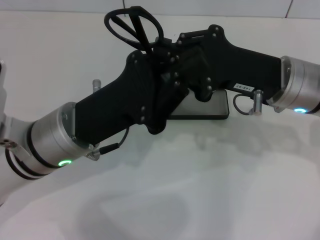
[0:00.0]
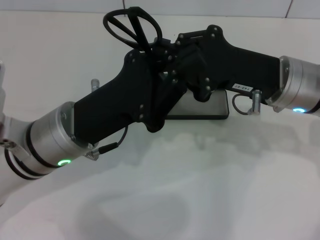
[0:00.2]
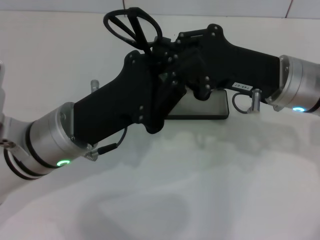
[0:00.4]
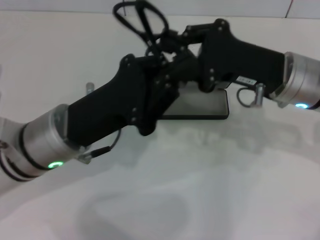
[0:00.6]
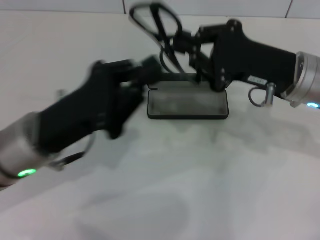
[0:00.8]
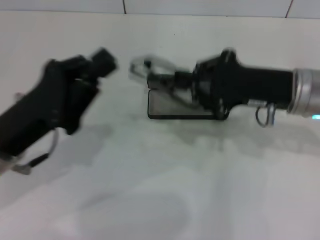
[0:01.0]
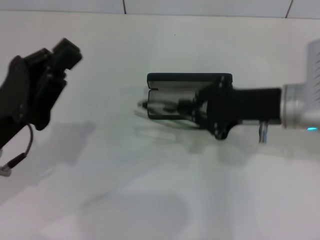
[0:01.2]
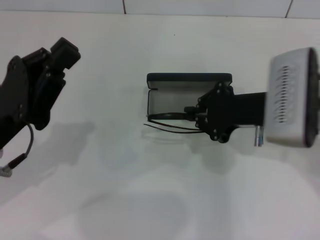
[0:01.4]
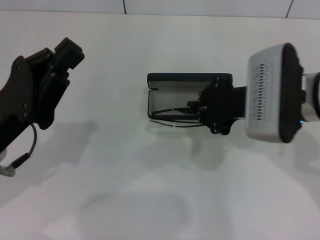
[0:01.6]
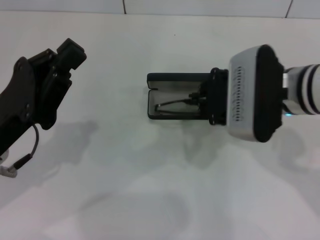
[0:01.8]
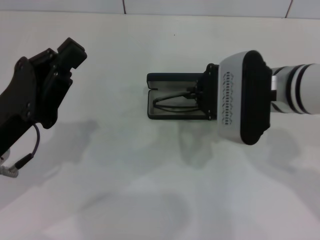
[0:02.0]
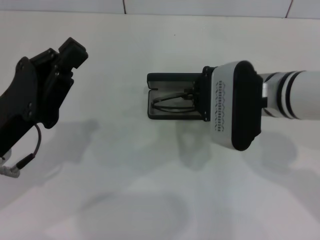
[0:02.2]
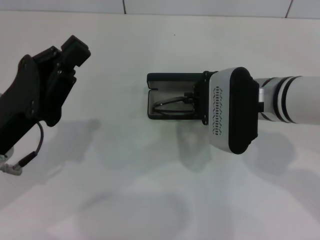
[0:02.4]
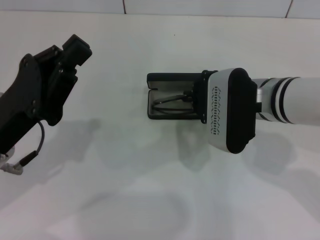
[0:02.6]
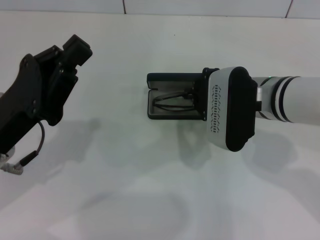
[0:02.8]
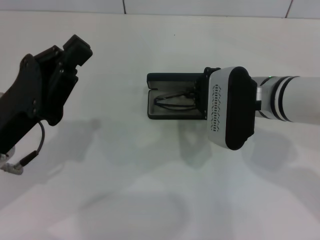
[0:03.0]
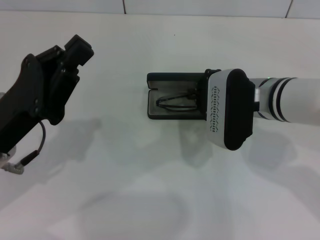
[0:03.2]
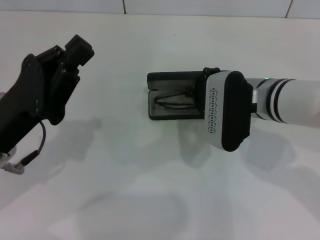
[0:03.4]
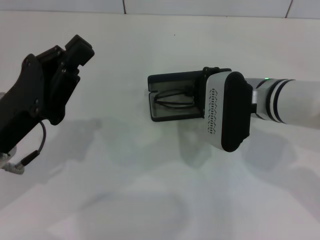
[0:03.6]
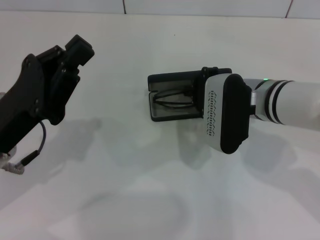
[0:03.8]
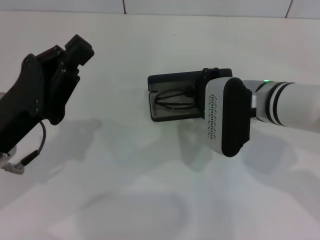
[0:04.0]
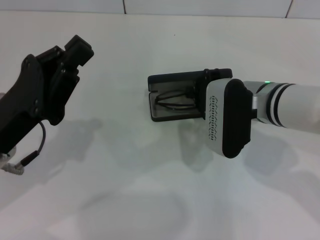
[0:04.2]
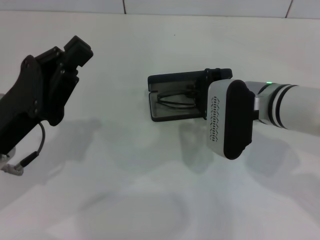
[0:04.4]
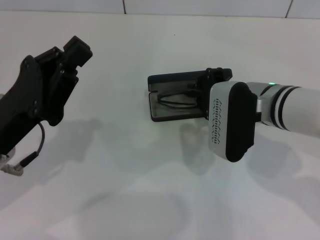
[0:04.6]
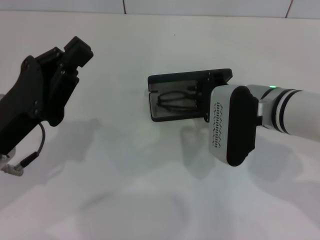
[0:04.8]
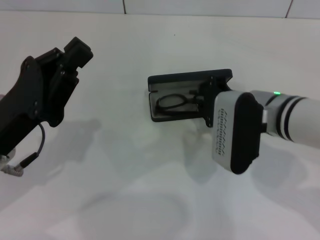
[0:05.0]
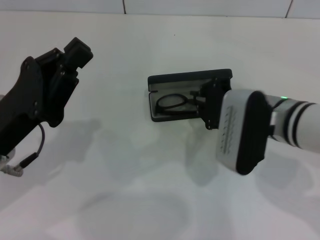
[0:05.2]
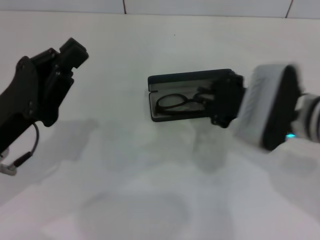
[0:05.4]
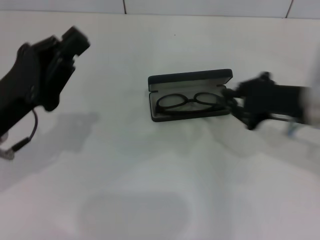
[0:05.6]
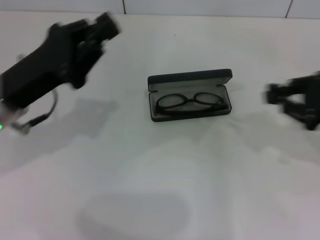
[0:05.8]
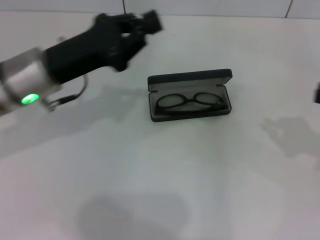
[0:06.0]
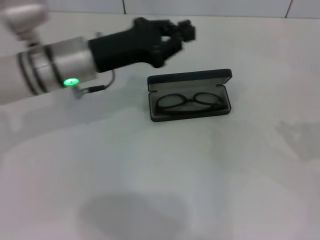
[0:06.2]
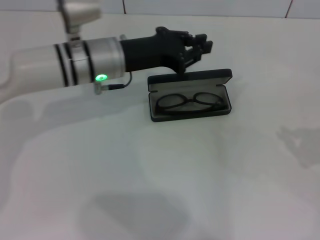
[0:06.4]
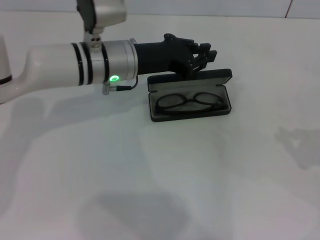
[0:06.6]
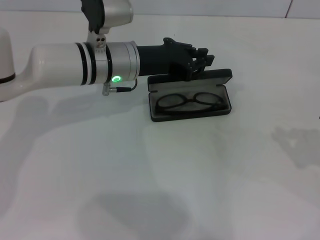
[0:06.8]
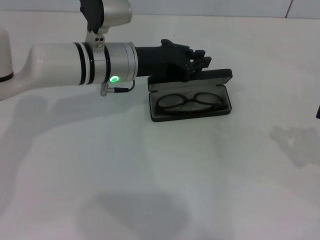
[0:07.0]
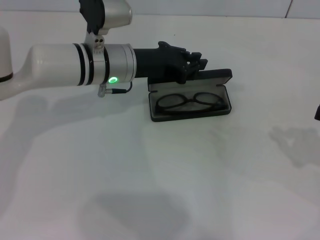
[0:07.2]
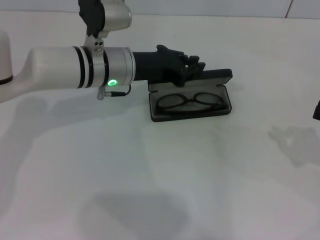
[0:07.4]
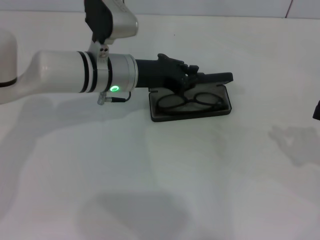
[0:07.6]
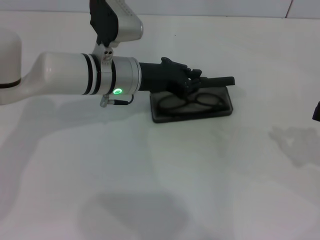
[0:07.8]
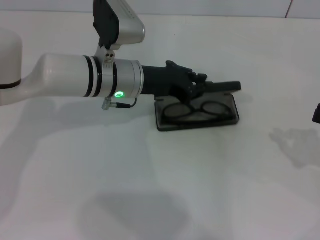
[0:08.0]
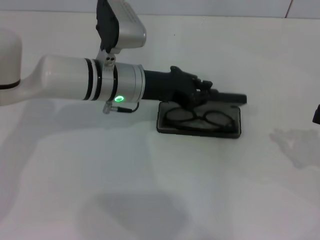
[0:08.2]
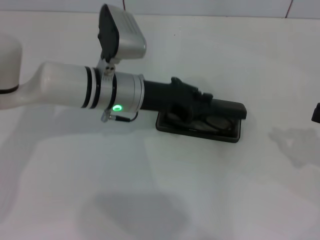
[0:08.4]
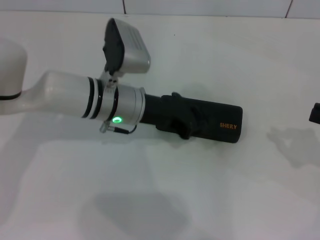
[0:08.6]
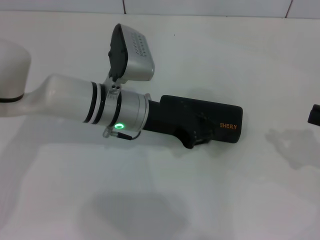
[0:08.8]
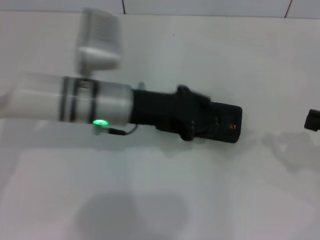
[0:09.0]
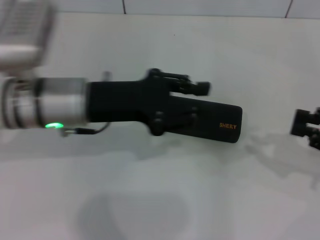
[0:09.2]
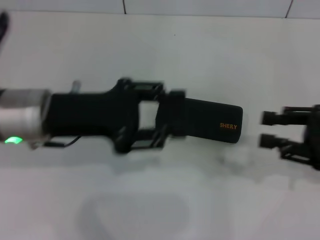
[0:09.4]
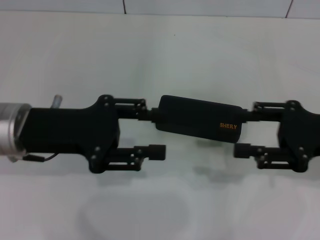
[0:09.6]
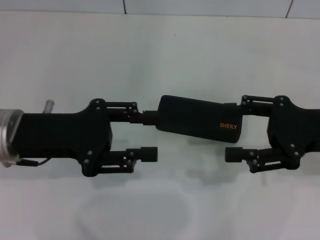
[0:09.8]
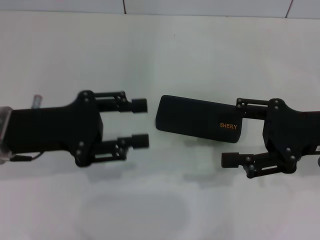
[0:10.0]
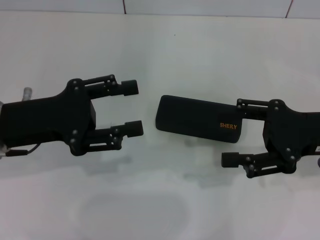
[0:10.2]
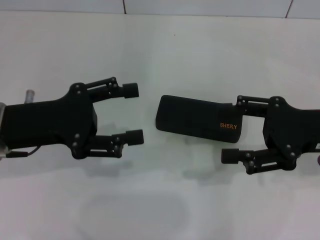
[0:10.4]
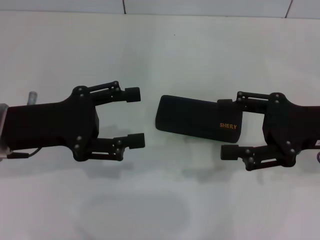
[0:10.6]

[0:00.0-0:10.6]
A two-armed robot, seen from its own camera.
Step, 0:00.6 to 0:05.0: Put the glasses into the case with your right hand.
Step, 0:05.2 to 0:08.4: Close the glasses case with your left hand.
0:00.0 to 0:01.6: The left gripper is displaced to the left by about 10 cm.
0:01.6 to 0:03.0: The right gripper moves some 5 cm.
0:03.0 to 0:04.6: The grippers move only a little.
0:04.6 to 0:06.0: The left gripper moves forward, some 10 cm. The right gripper heads to the right, covering roughly 25 cm.
0:06.0 to 0:07.6: The left gripper is displaced to the right and forward by roughly 10 cm; the right gripper moves some 5 cm.
0:07.6 to 0:09.0: The left gripper is displaced backward by approximately 5 cm.
0:09.0 to 0:10.6: The right gripper moves to the left, about 10 cm, and opens its fingers, while the left gripper travels to the left and backward by about 15 cm, and opens.

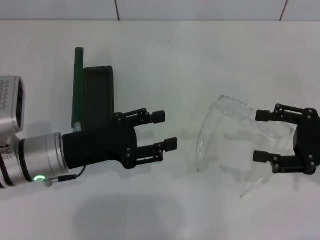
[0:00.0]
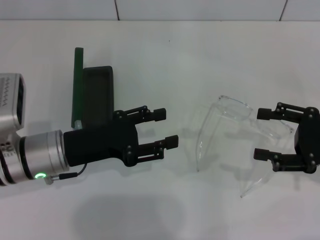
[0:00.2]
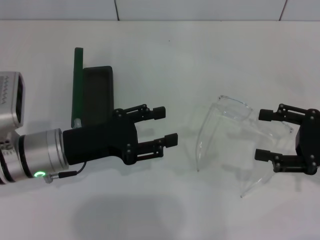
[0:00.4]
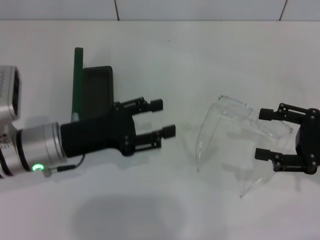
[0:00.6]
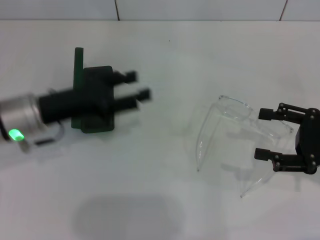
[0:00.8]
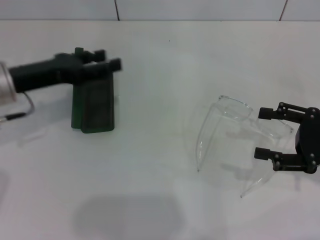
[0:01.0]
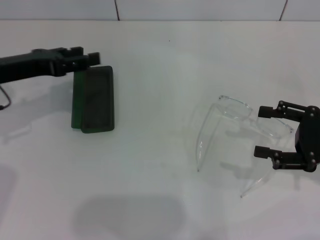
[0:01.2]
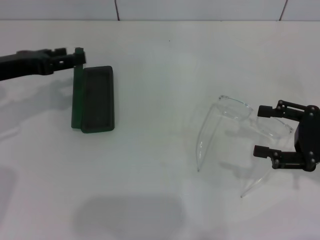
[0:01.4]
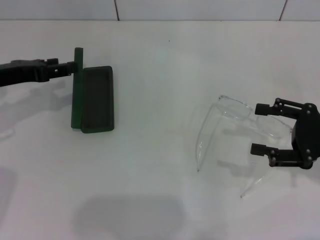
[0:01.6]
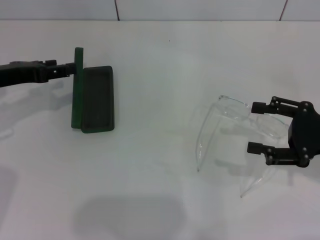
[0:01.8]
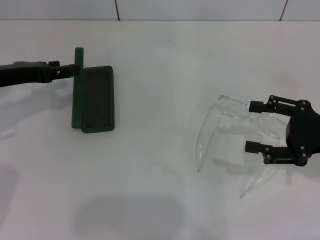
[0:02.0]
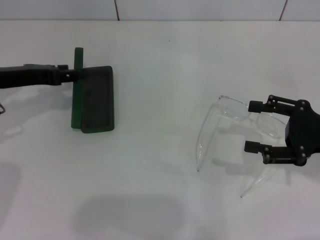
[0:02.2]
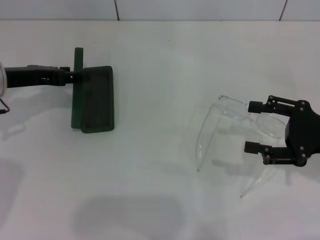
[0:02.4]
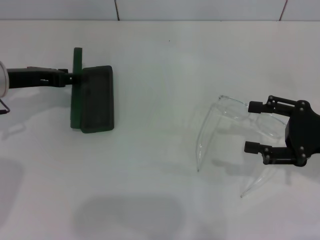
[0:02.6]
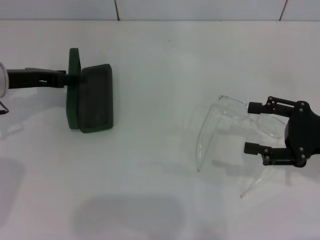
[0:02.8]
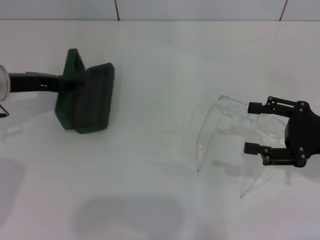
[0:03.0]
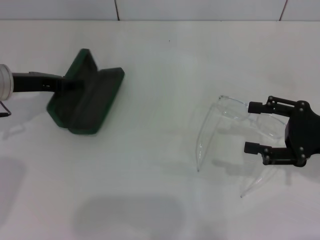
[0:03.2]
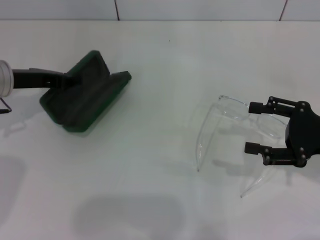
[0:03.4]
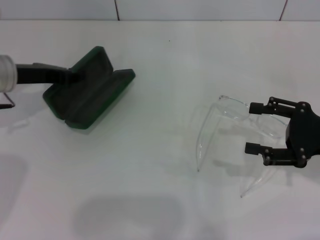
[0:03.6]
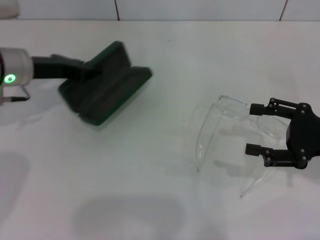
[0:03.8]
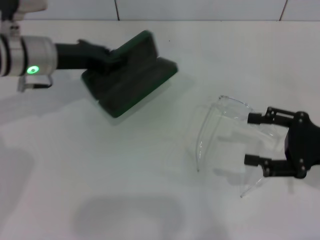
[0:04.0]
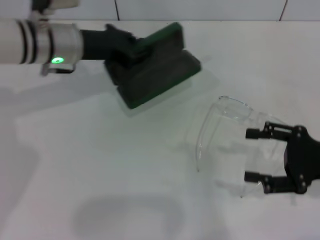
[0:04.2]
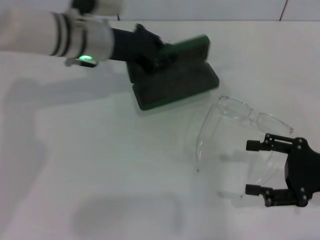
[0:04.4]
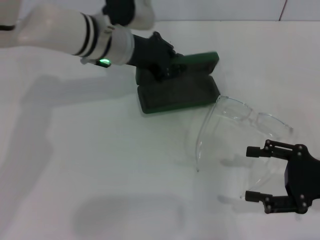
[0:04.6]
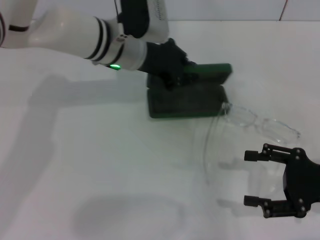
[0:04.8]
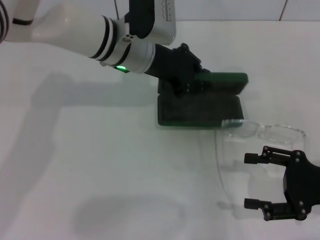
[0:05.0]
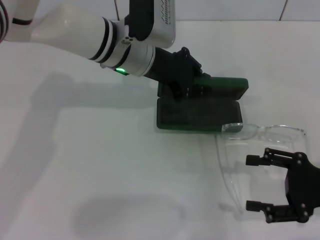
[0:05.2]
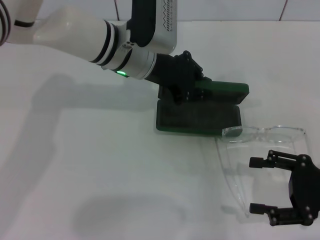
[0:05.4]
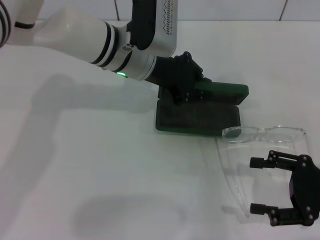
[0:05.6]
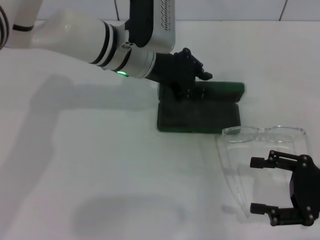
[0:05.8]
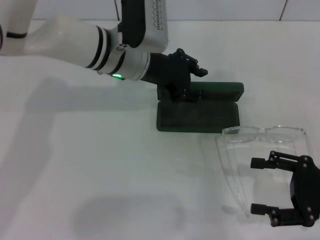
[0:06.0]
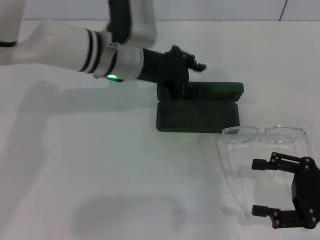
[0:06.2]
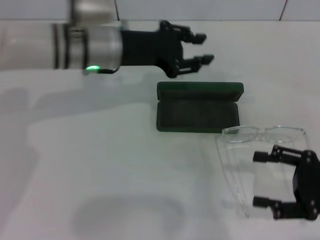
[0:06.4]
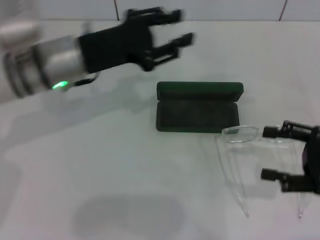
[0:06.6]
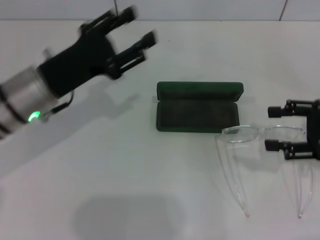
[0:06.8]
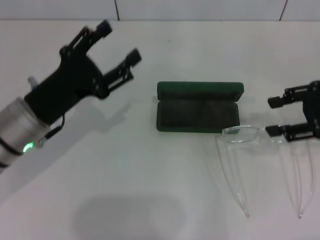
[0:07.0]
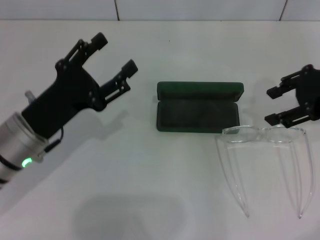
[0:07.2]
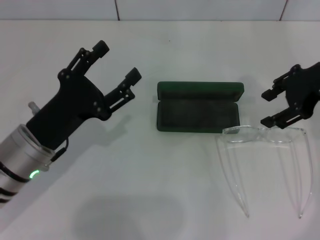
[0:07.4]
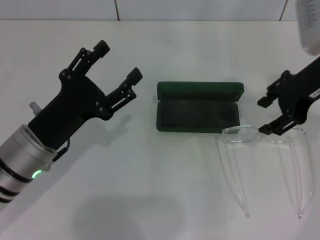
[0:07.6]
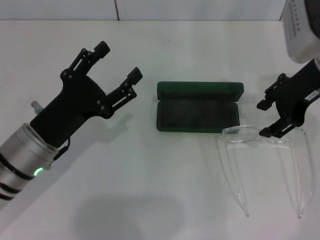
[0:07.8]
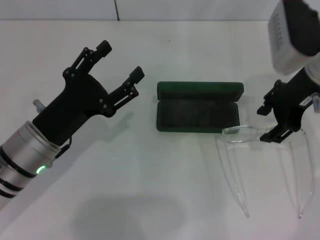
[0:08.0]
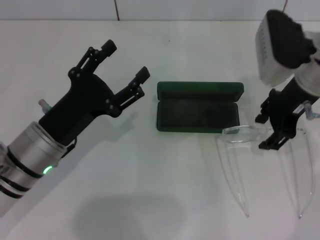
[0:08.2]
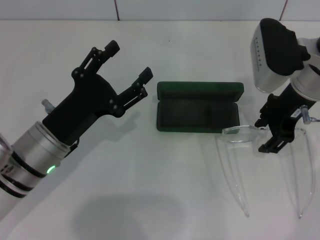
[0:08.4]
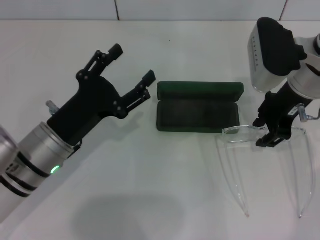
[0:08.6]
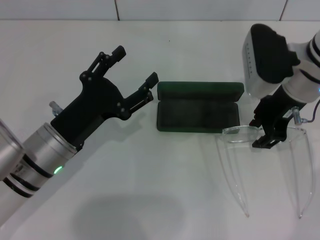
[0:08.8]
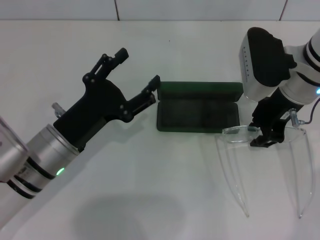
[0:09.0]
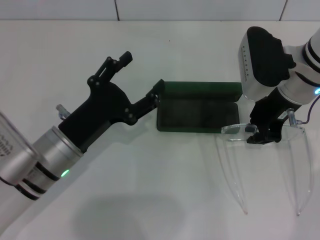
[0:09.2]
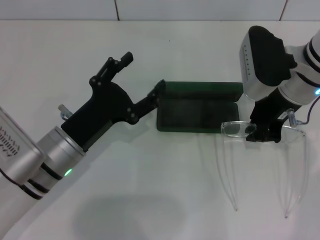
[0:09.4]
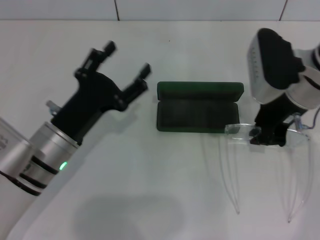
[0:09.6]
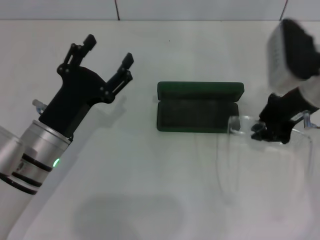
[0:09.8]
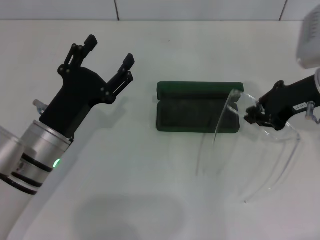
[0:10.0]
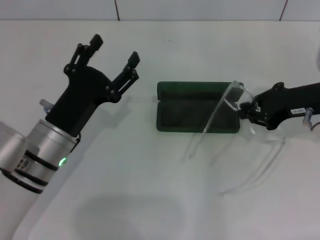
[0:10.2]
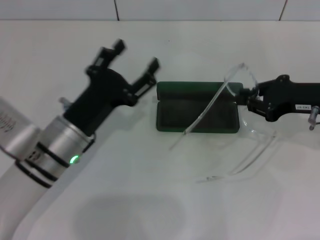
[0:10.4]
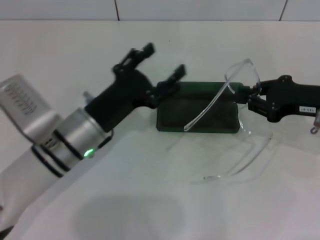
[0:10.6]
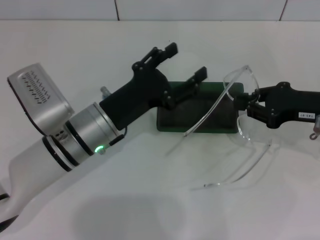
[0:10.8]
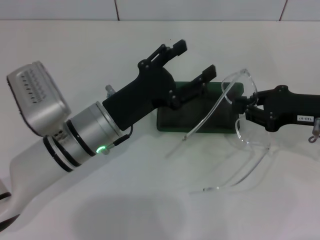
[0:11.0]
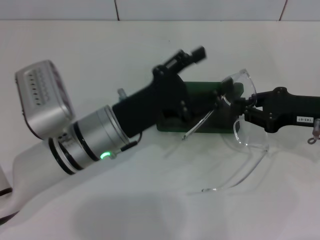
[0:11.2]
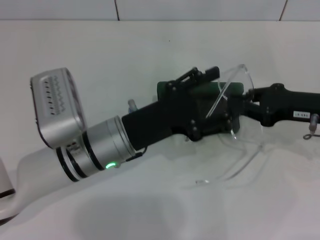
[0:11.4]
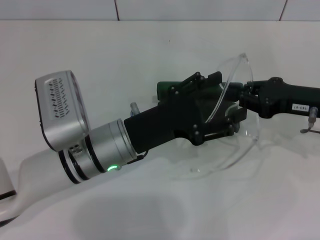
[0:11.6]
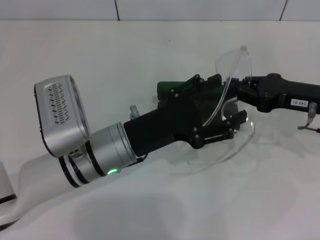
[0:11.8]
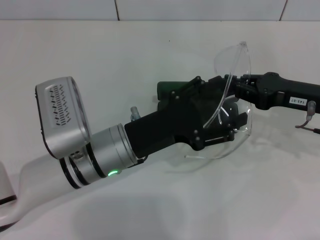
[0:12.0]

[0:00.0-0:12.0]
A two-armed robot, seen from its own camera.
Step, 0:00.0 to 0:03.4: Grab the glasses case with your left hand.
Step, 0:03.6 to 0:05.8: Place the glasses case in the center of the table with your left hand.
Step, 0:06.0 to 0:09.2: Grab the eyeglass frame with your right hand.
0:00.0 to 0:01.6: The left gripper travels to the left, forward and upward by some 15 cm.
0:01.6 to 0:03.0: The grippers move only a little.
0:03.0 to 0:04.4: The left gripper shifts roughly 15 cm to the right, and closes up.
0:06.0 to 0:07.6: The left gripper shifts about 20 cm backward, to the left and downward, and opens up; the right gripper is displaced forward, upward and to the left by roughly 20 cm.
0:07.6 to 0:09.0: The right gripper heads downward, covering about 5 cm.
0:09.0 to 0:10.4: The right gripper travels to the right by some 10 cm, and closes up.
0:10.4 to 0:12.0: The left gripper heads to the right, covering roughly 5 cm.
